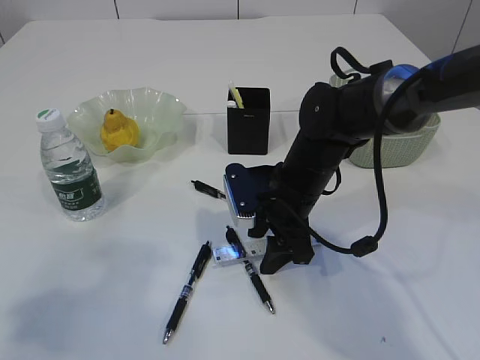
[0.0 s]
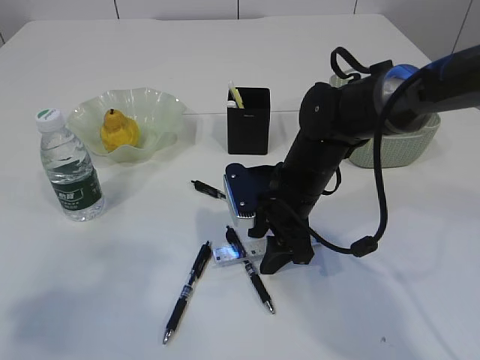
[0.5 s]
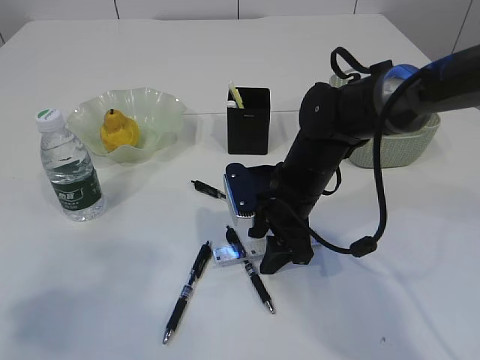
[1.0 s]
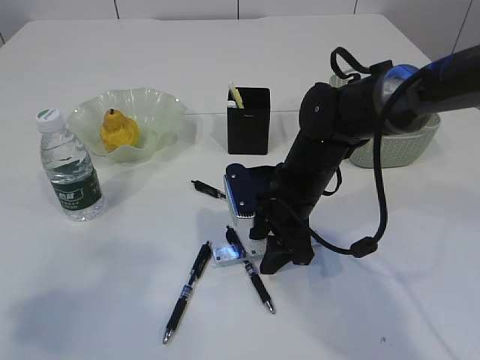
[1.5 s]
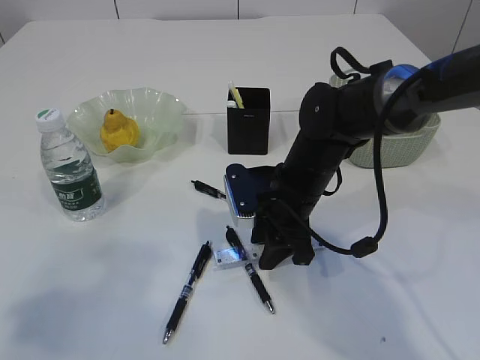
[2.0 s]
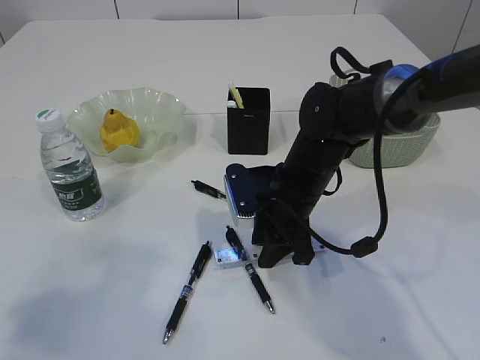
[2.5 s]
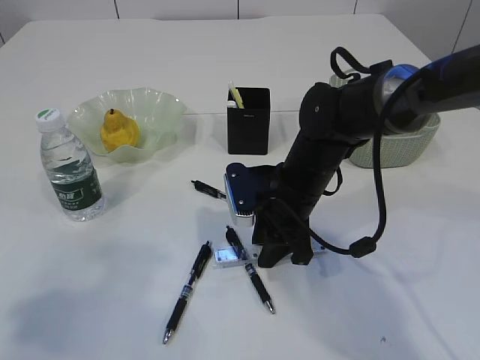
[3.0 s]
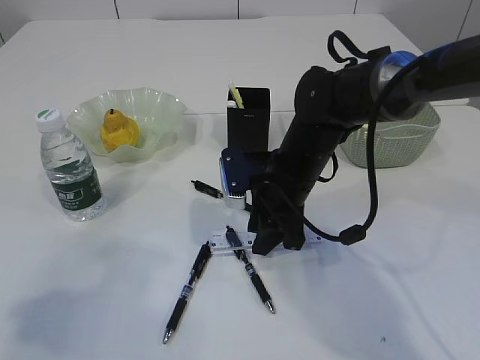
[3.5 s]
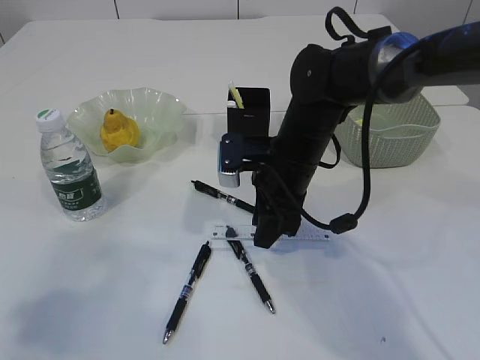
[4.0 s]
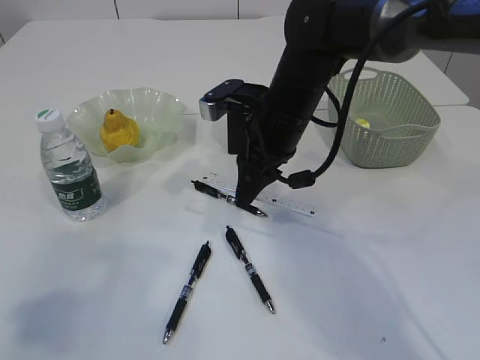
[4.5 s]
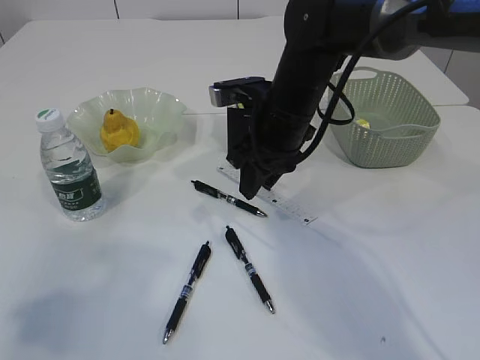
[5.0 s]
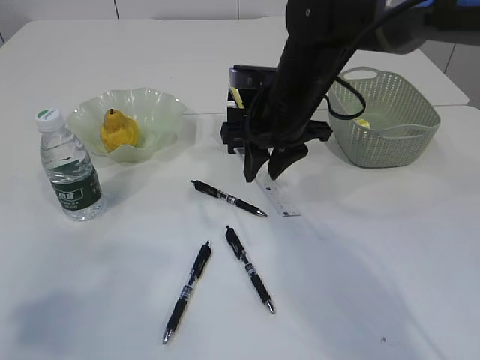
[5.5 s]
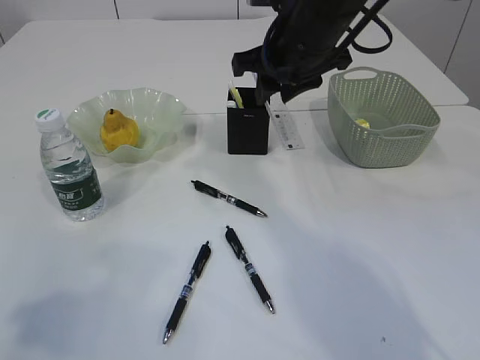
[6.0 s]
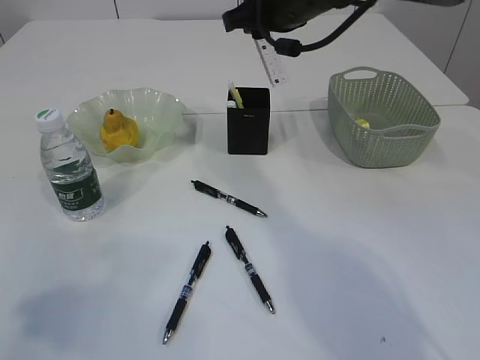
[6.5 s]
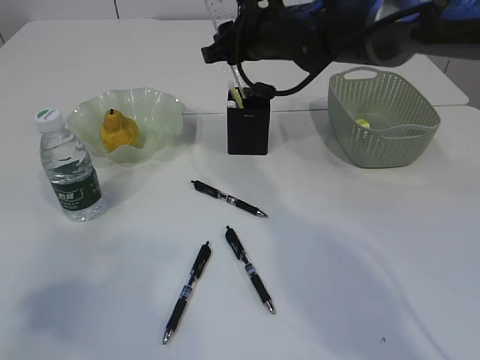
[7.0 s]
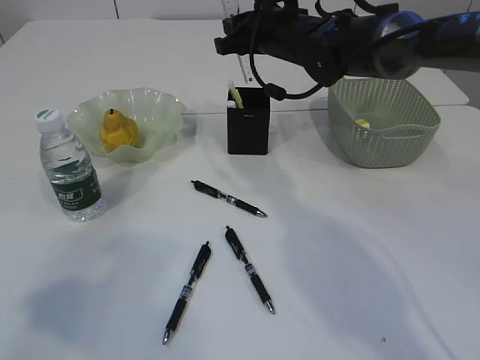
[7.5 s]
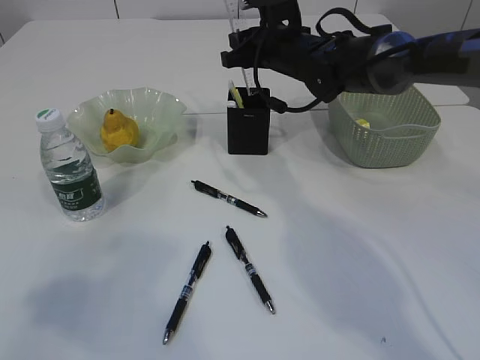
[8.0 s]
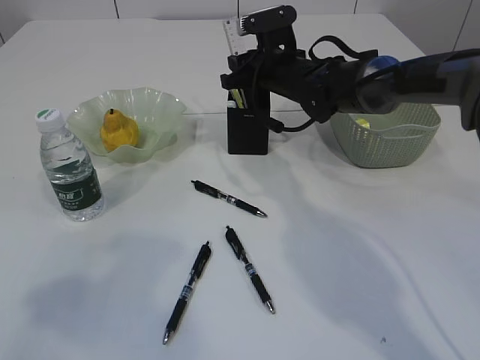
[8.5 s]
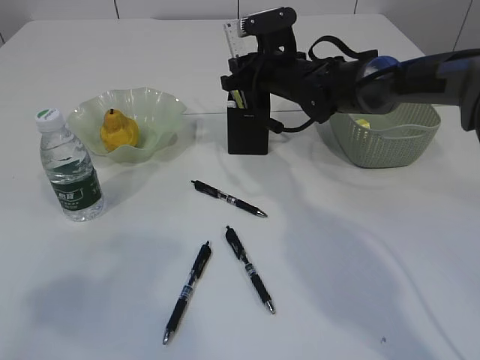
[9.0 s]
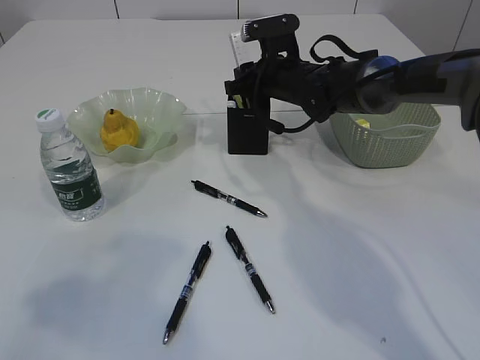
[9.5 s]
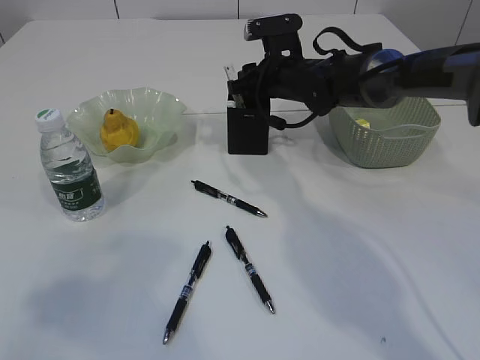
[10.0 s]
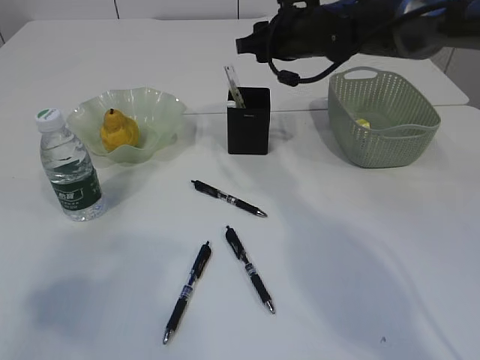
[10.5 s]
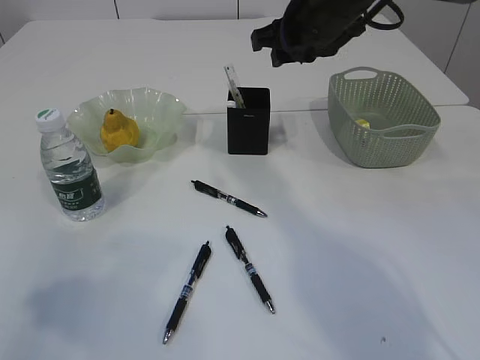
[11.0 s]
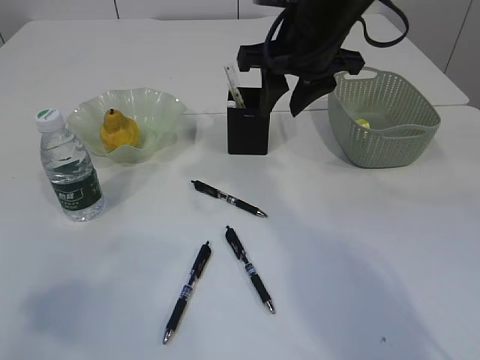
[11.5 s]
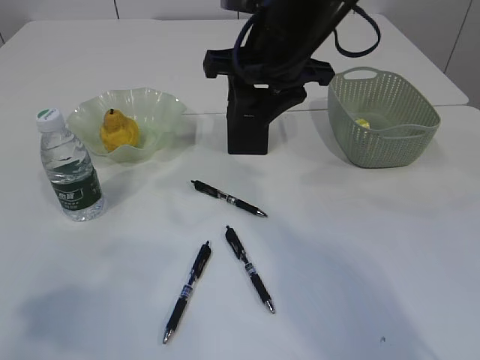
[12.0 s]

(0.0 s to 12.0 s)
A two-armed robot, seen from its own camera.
Step, 0.0 s - 5.0 s: pick up the ruler.
Step, 5.5 s - 10.0 s: Place the ruler into the pen holder.
0.0 s - 2.0 s: Neither gripper changes place.
2.0 s - 4.0 s: The grippers make only small movements.
4.0 s - 6.0 s: The right gripper heads upward, covering roughly 15 cm.
6.0 s - 8.0 s: The right gripper shifts approximately 10 cm forward and downward.
8.0 s - 10.0 s: There are only small adjustments of the grippers.
10.0 s - 12.0 s: The right gripper goes some 20 cm backward and upward.

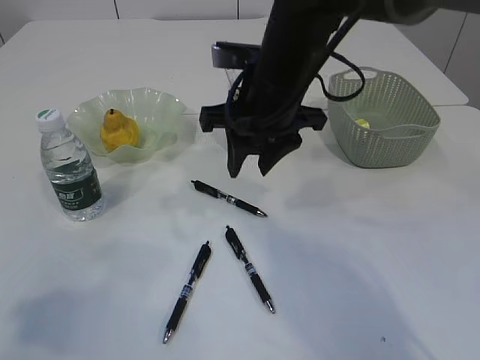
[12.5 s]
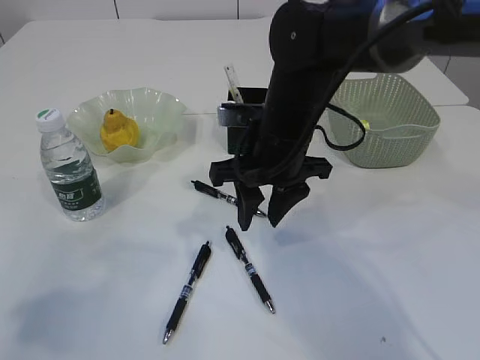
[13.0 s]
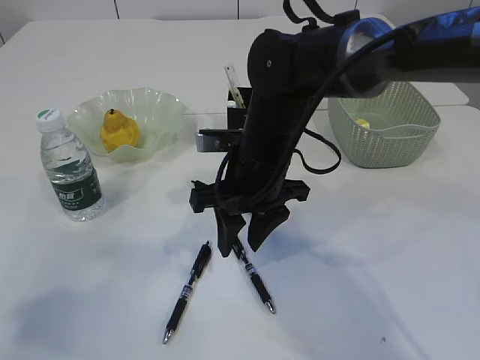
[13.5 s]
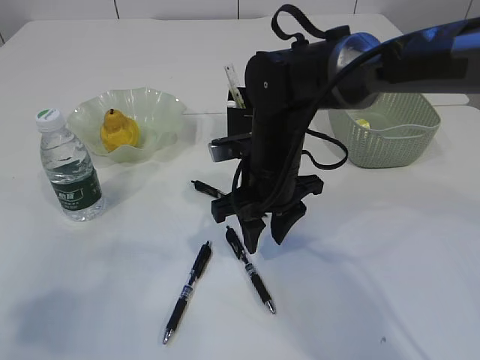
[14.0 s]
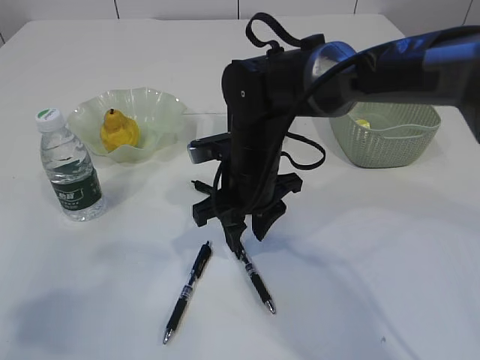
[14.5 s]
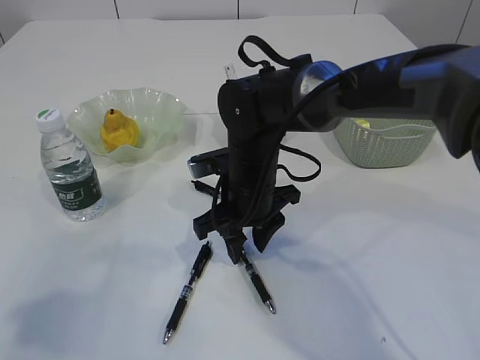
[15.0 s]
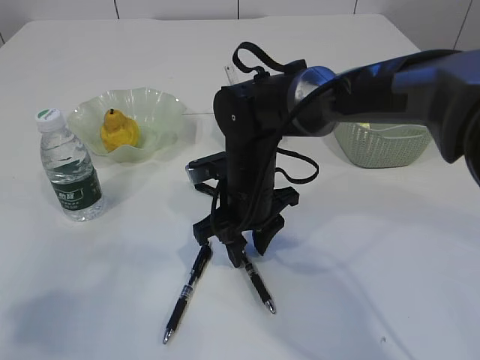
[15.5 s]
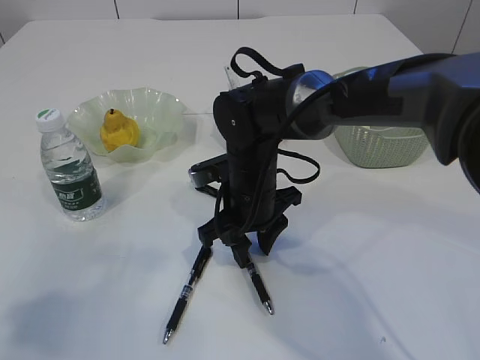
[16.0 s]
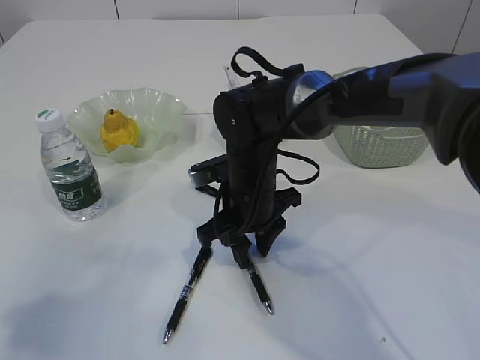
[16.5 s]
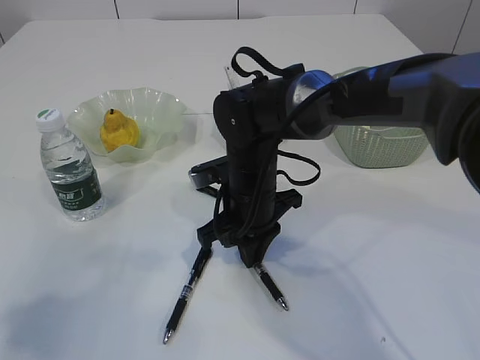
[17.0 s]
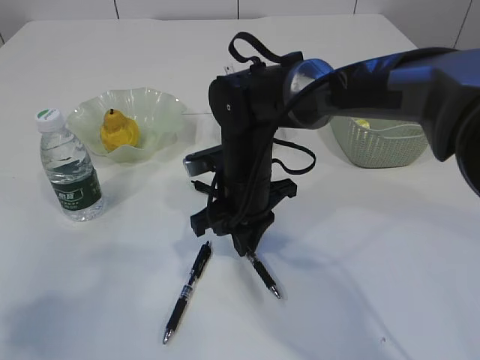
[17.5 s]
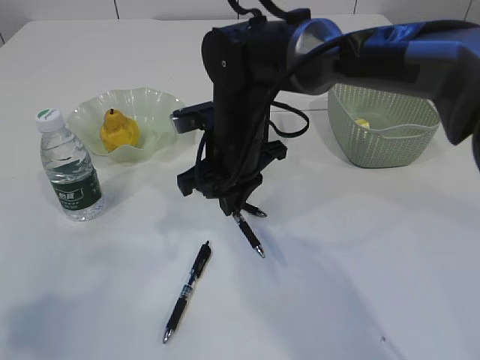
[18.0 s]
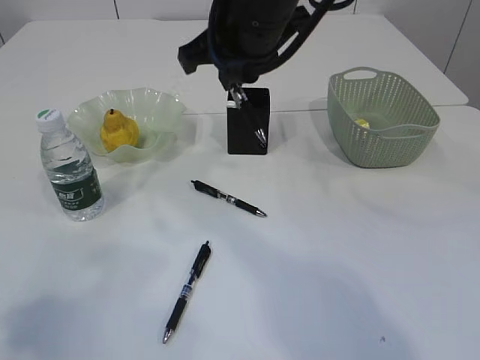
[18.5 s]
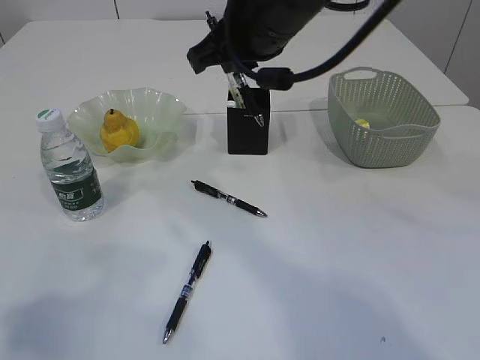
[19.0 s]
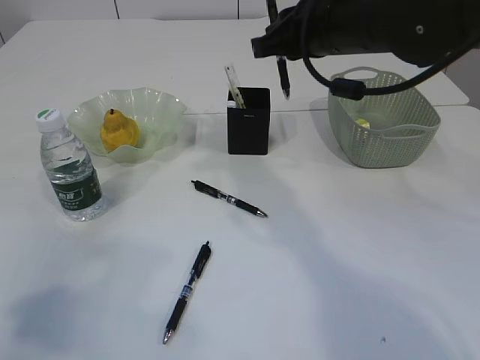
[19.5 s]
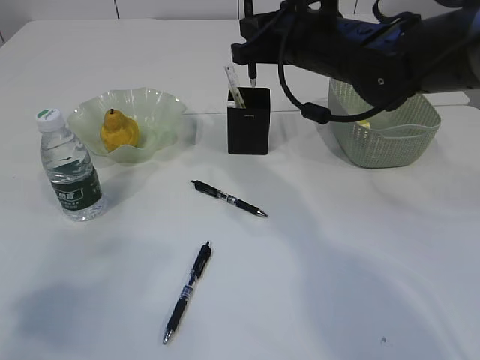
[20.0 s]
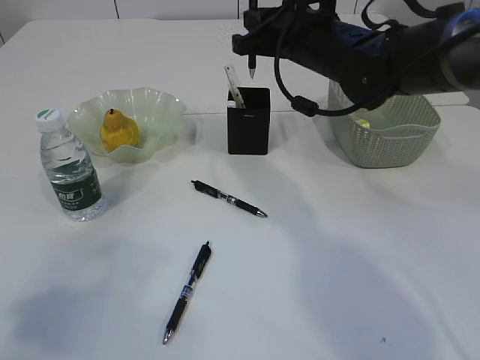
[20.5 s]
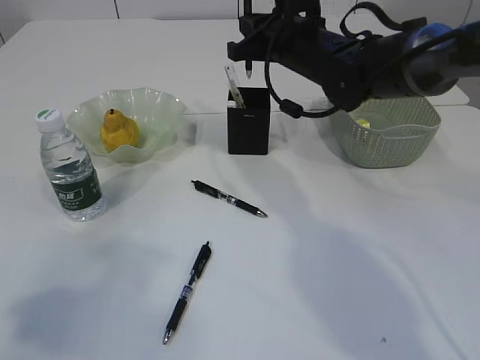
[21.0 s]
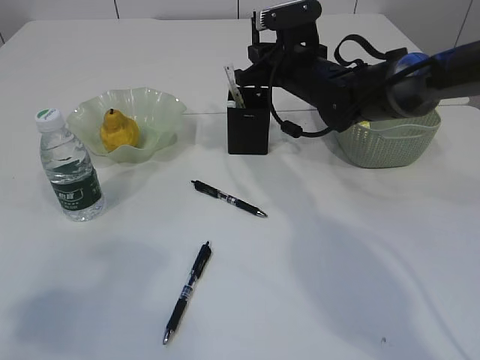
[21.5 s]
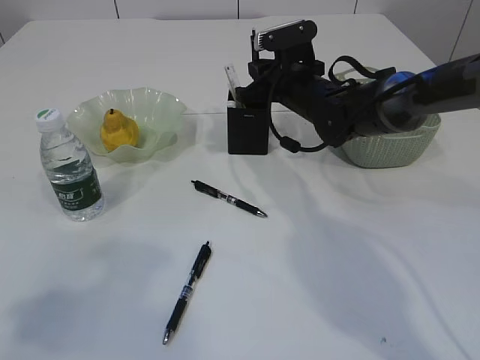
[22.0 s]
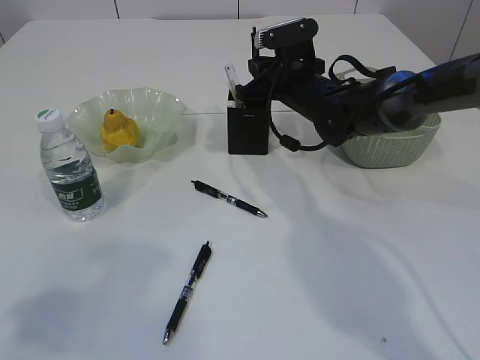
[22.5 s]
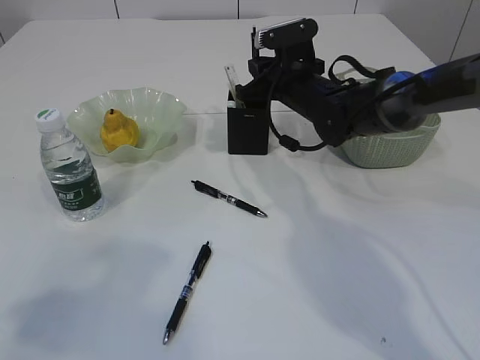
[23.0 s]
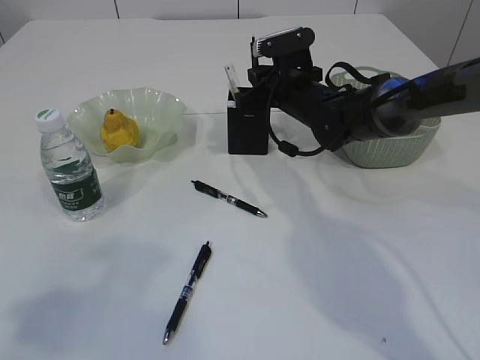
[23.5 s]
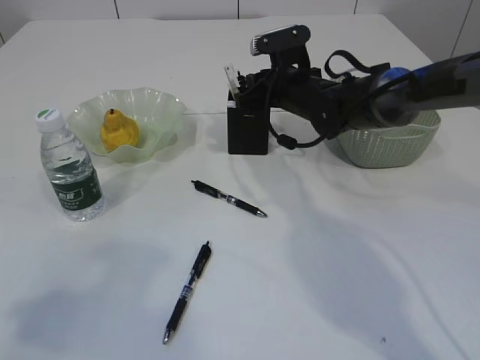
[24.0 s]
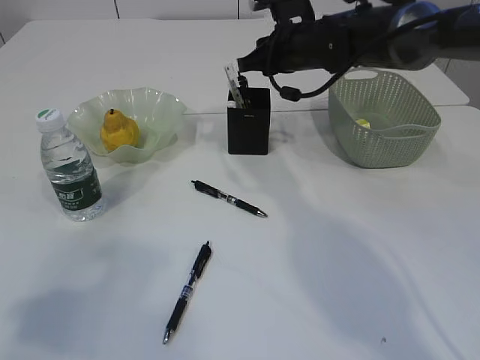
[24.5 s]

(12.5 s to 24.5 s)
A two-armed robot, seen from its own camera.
Step, 12.5 s - 18.0 s: Pick up the pen with right arm.
12.5 s - 14.5 s: The right gripper shifts some 10 cm downward.
14.5 s - 16.5 s: There are only small adjustments of the grippers.
16.5 s - 18.5 s: The right gripper heads upward, covering some 20 cm, and closes its fingers.
18.5 s - 20.5 s: The right gripper shifts about 10 cm to the right, downward and forward.
20.5 s - 22.5 s: The right gripper heads downward and forward, covering approximately 10 cm.
22.5 s - 24.5 s: The right gripper moves upward, approximately 5 cm.

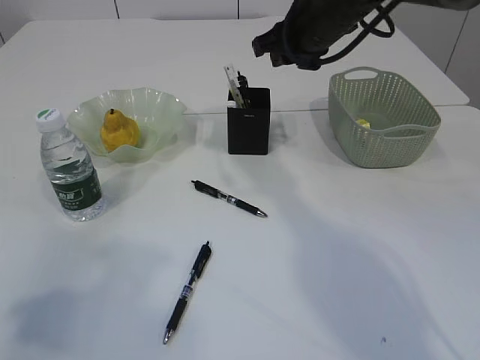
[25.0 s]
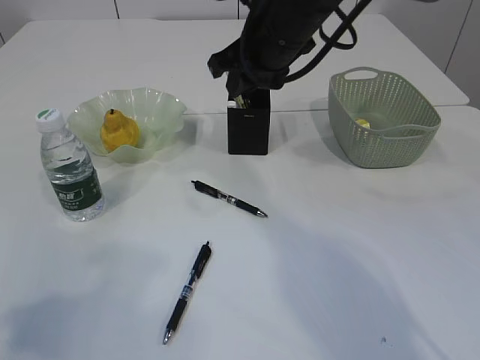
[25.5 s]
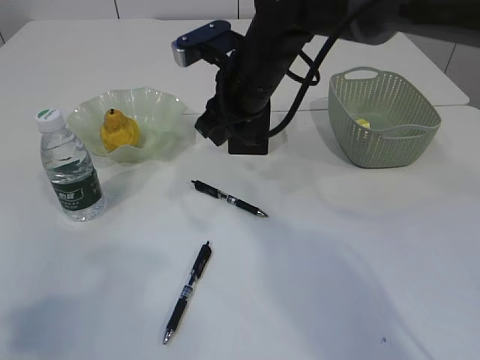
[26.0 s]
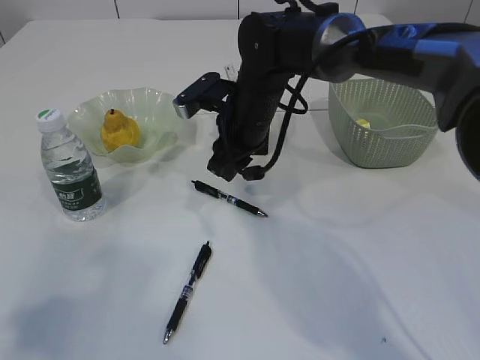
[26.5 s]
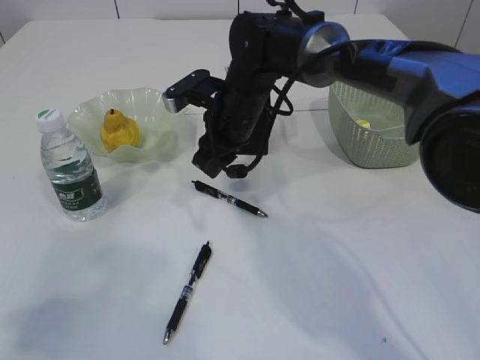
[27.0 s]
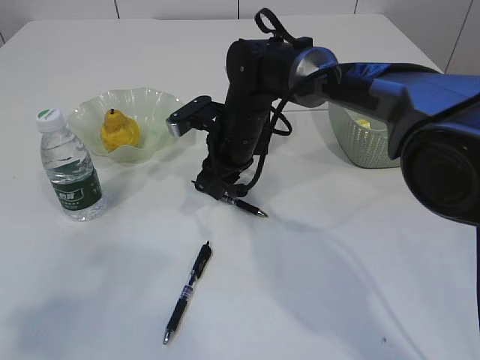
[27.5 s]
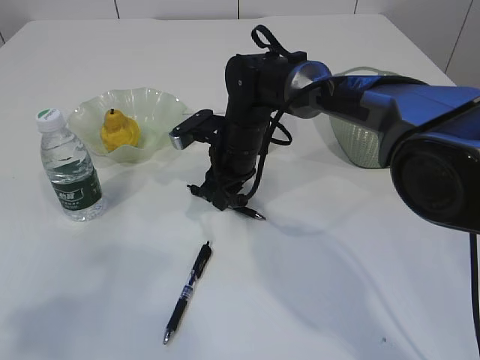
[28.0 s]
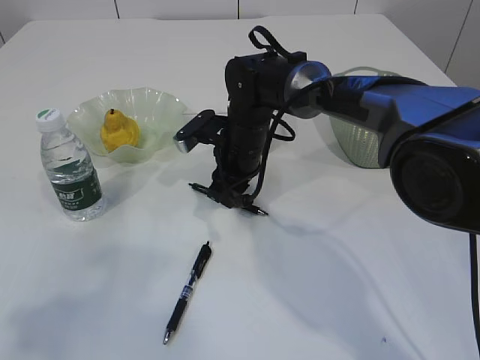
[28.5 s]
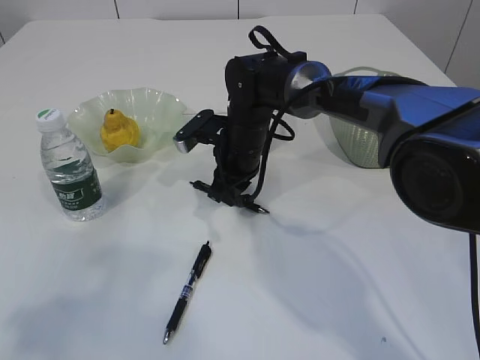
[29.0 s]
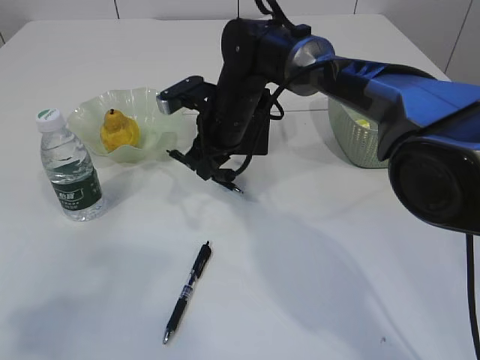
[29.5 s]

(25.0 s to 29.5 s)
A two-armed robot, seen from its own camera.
25.0 s - 27.0 s: The right gripper is displaced to the left and downward by roughly 15 cm.
27.0 s - 29.5 s: The grippers move only a little.
